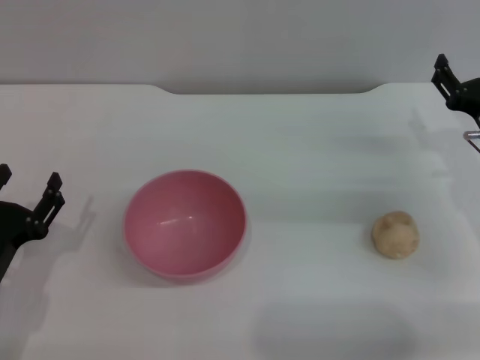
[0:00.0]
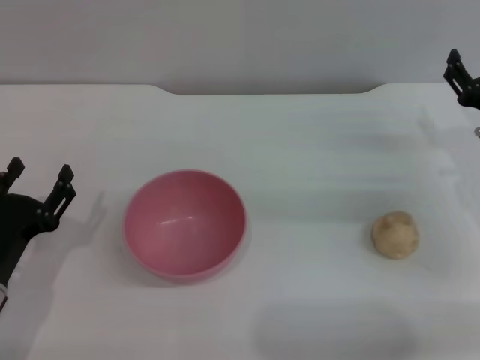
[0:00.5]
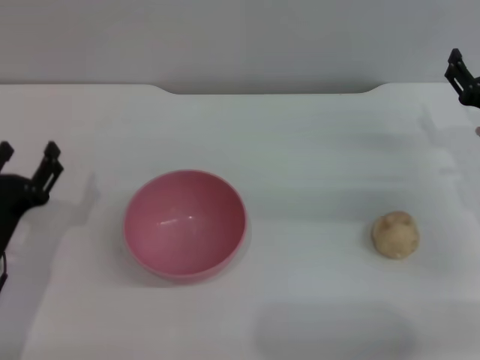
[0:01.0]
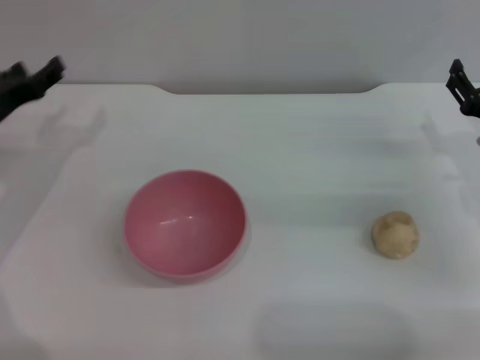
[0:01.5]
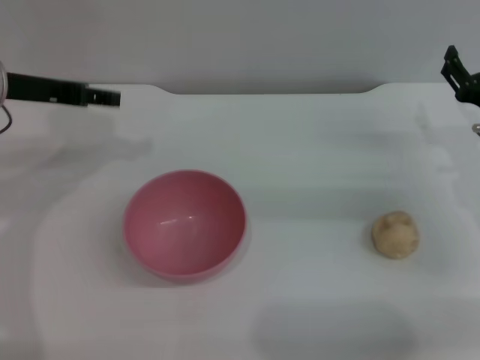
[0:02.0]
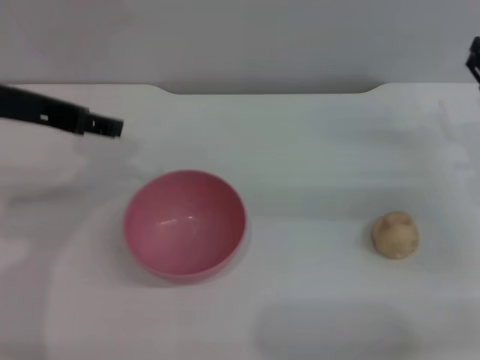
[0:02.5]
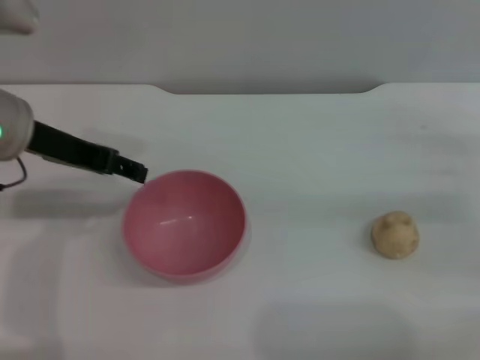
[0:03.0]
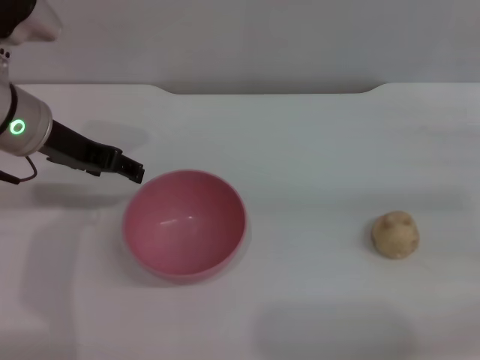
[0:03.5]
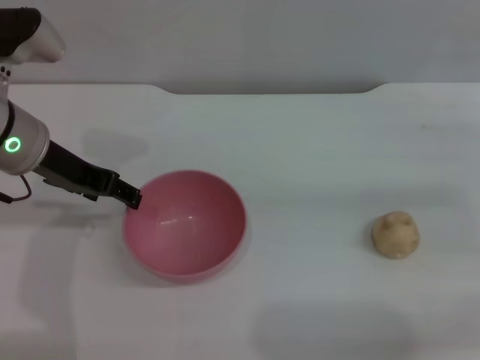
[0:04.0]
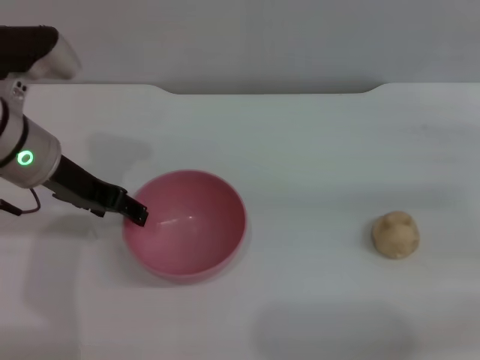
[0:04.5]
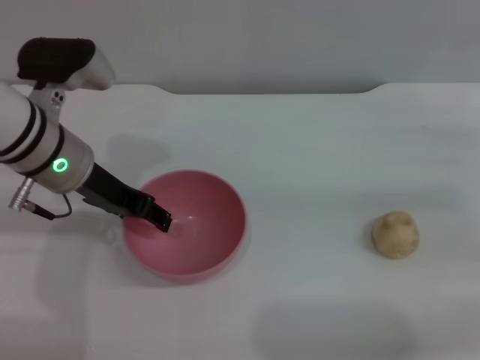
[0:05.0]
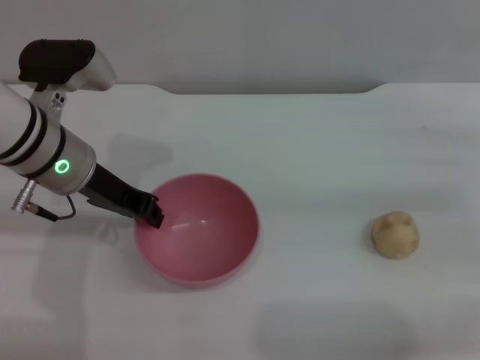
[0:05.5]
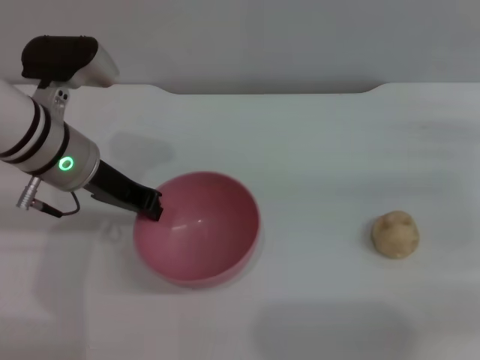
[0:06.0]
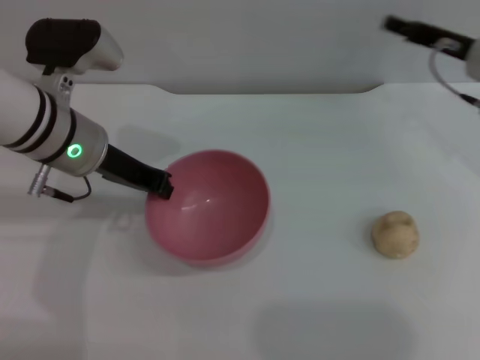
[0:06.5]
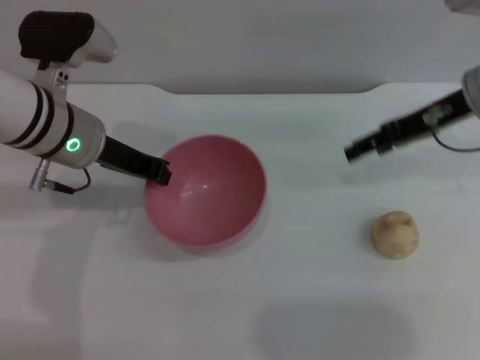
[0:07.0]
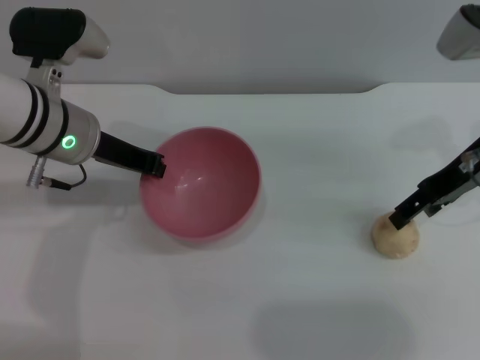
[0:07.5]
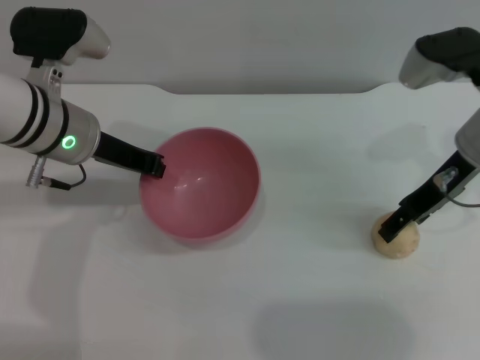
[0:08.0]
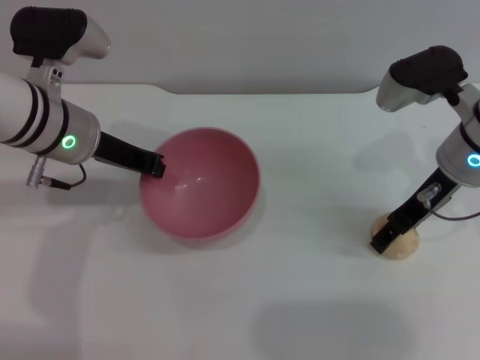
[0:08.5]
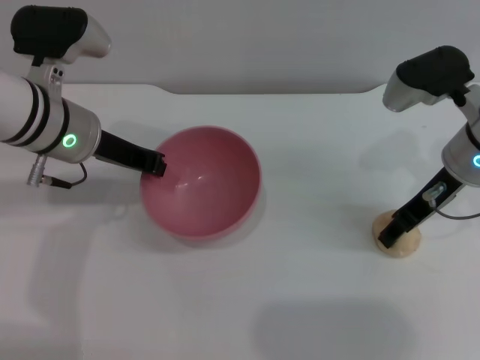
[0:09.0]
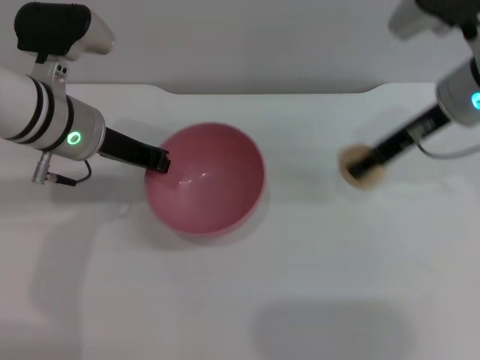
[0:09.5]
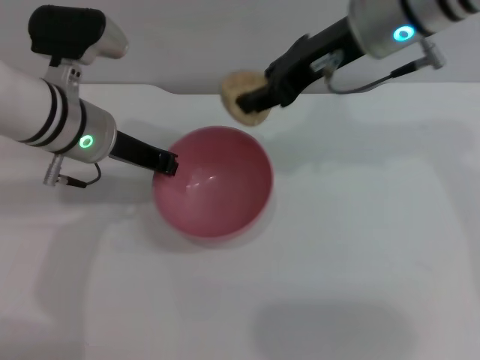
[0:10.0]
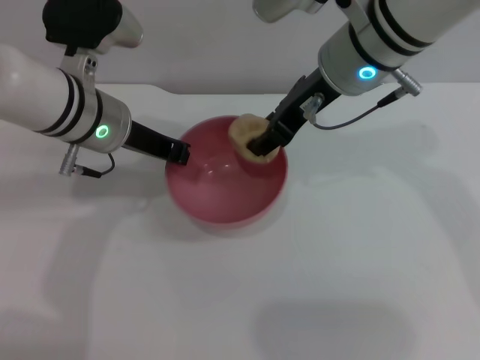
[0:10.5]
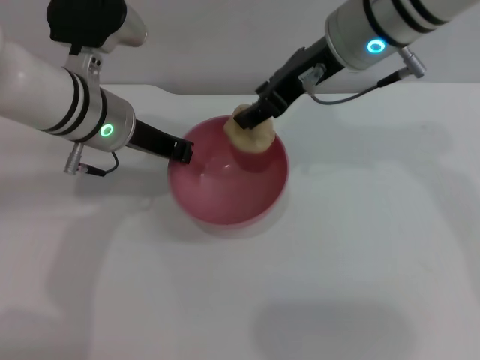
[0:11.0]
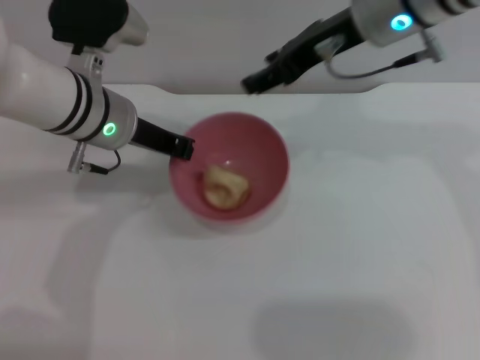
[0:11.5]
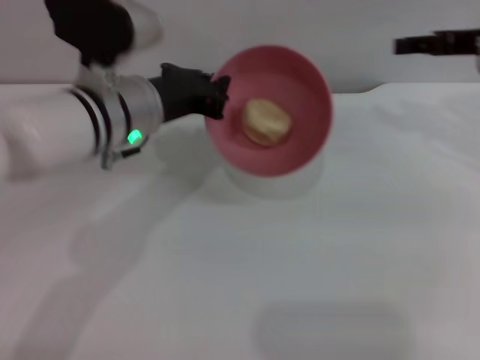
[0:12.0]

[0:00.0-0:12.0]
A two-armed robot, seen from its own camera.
Task of the whole recording: put the egg yolk pastry into the pink bowl and pour it out repeatedly.
Step, 0:00.0 to 0:07.0: Pick up the bowl with the left gripper.
Step, 0:07.5 to 0:09.0: Pick up the egg yolk pastry with the right gripper.
Step, 0:09.5 to 0:11.0: Place the egg yolk pastry into the bowl.
0:00.0 to 0:02.0: The left gripper heads forward and upward, covering about 25 cm.
0:02.0 to 0:04.0: The right gripper goes about 10 cm to the right.
0:04.0 to 0:06.0: The left gripper closes.
0:06.0 to 0:08.0: The right gripper is displaced to the left and upward by about 15 cm.
0:08.0 to 0:10.0: The right gripper travels to the left and upward by roughly 15 cm, and closes its fingers.
0:10.0 to 0:12.0: The right gripper goes about 15 cm to the right, and opens.

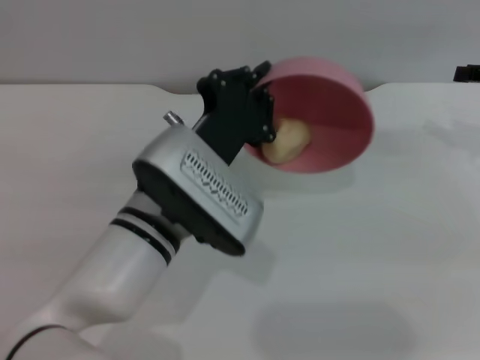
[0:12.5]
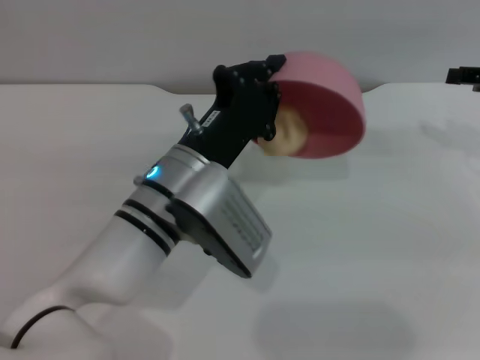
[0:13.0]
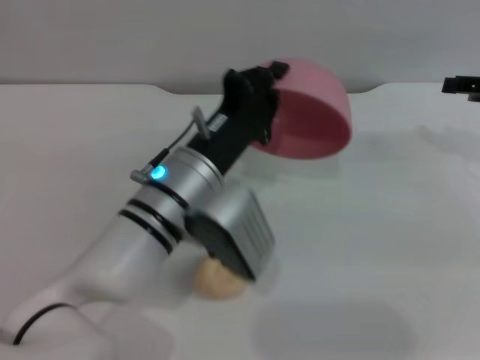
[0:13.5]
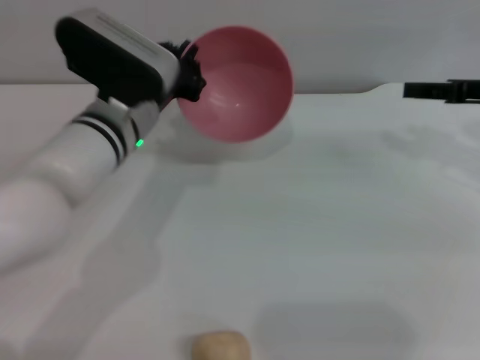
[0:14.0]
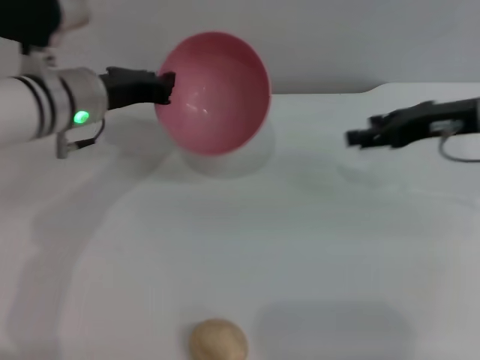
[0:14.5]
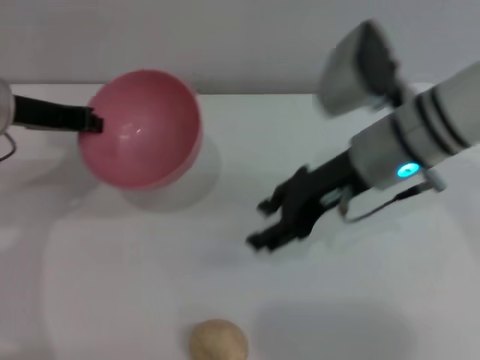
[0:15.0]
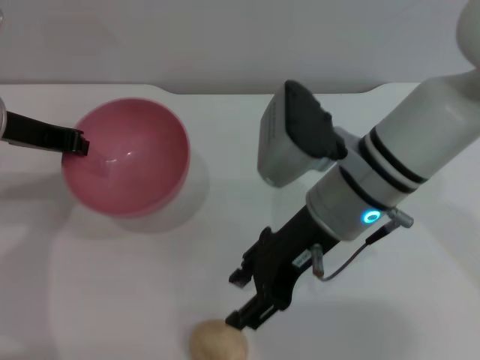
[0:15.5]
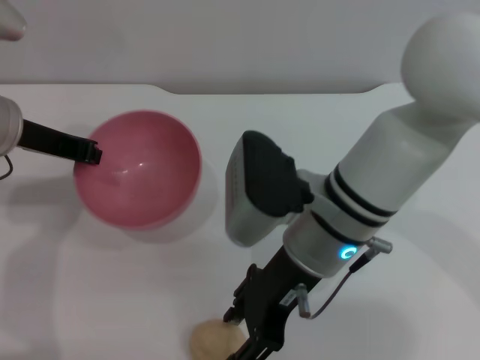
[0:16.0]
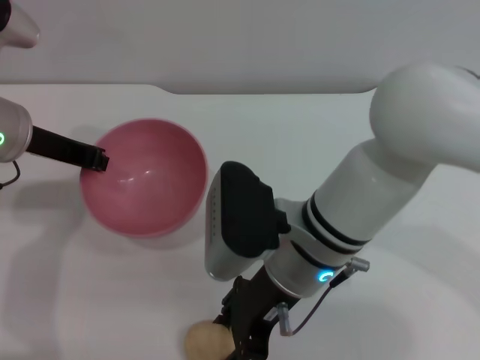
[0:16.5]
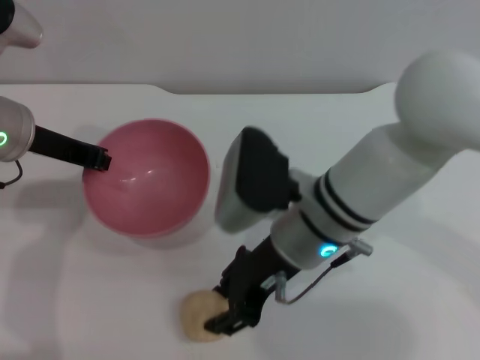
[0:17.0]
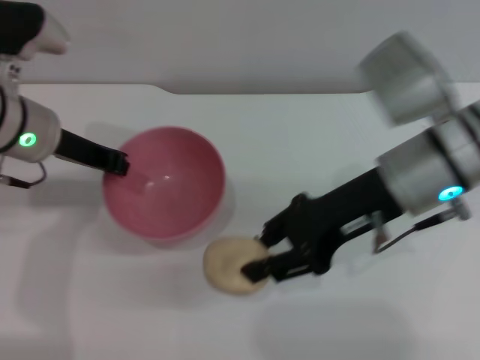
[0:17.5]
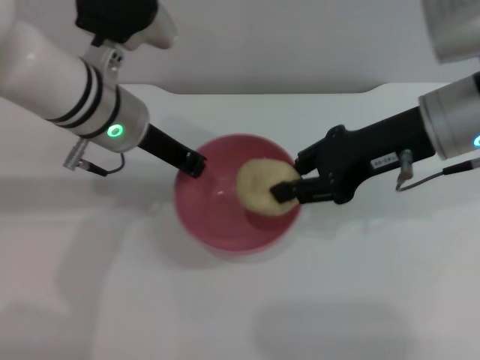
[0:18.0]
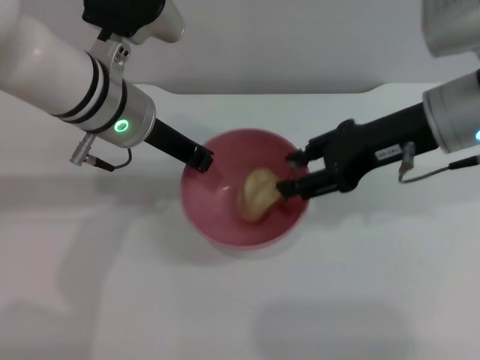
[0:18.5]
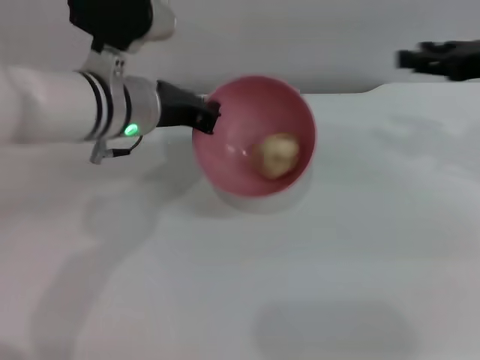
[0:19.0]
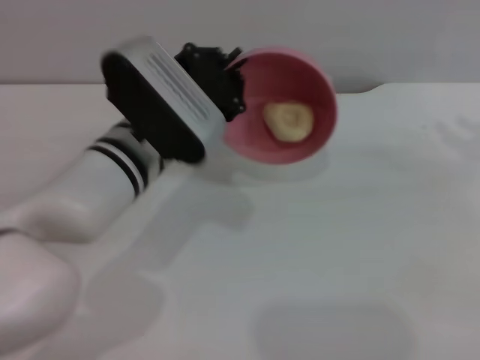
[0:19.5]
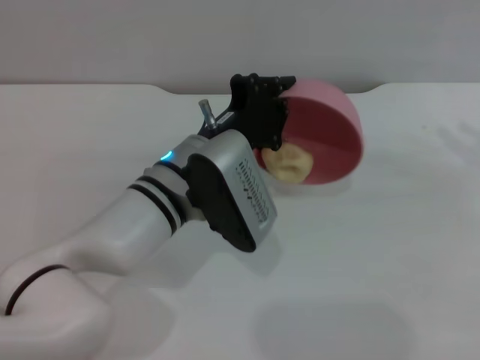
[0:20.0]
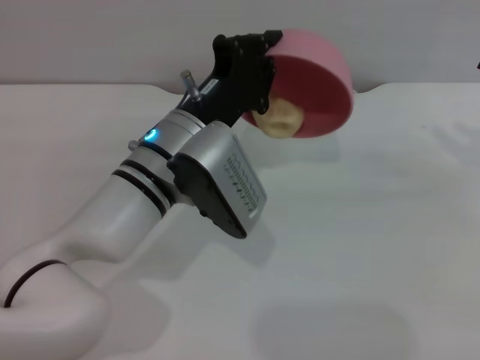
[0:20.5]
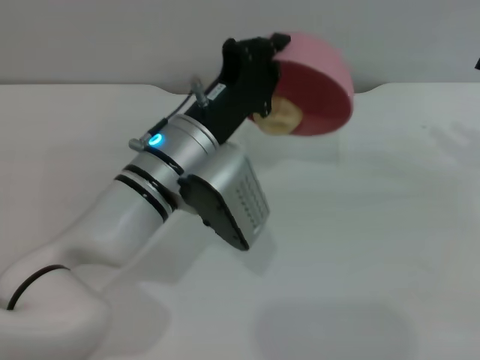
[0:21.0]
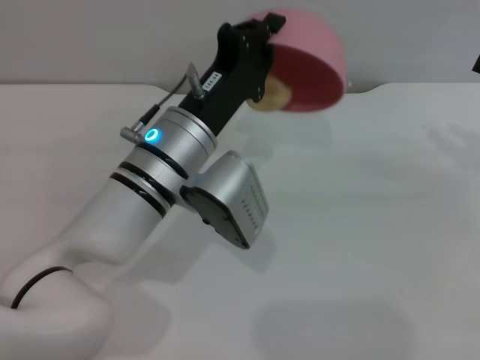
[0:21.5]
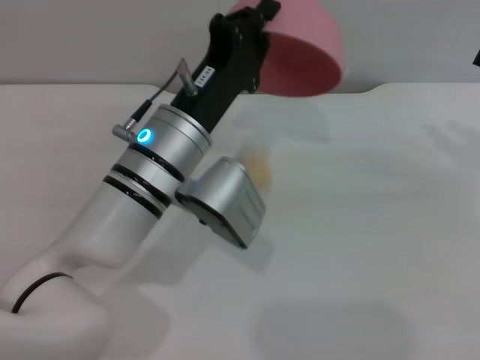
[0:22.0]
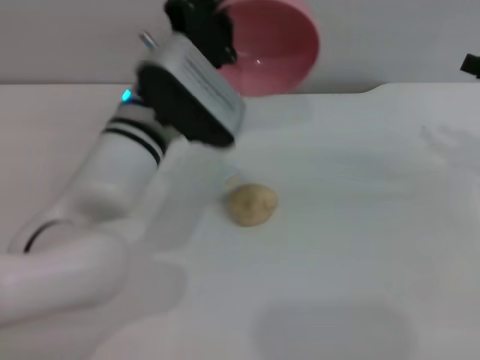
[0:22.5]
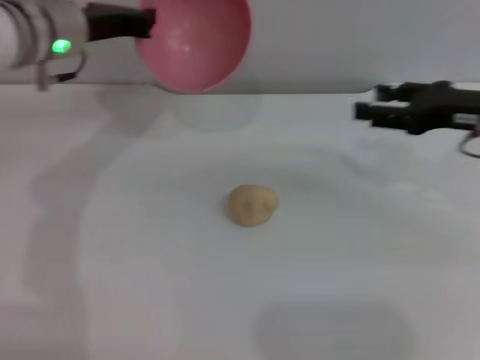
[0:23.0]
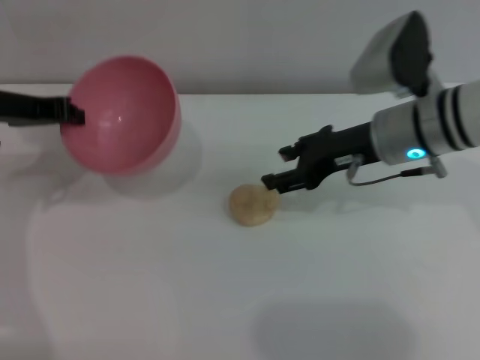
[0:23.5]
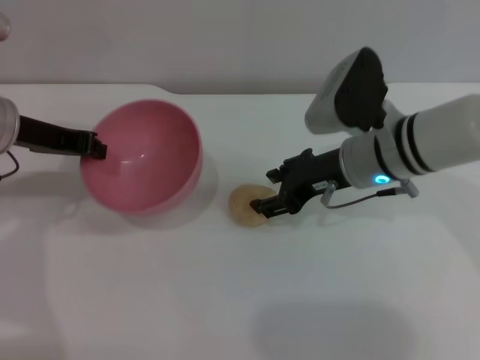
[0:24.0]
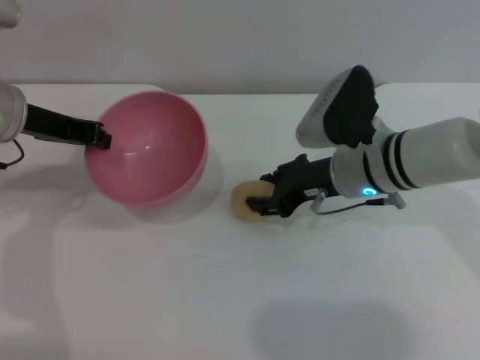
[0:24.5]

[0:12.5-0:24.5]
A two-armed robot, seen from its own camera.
Task of the whole recording: put the egg yolk pastry into the pink bowl and pour it out repeatedly.
Step, 0:13.5 to 0:17.0: Pick up the egg yolk pastry with the right gripper.
Step, 0:17.5 to 0:18.5: Place the egg yolk pastry into the bowl.
Step, 0:19.0 to 0:22.0: Pour the egg yolk pastry out of bowl.
0:12.5 to 0:14.5: The left gripper moves forward and to the left, about 15 cm. Meanwhile the right gripper goes roughly 10 cm to the left.
0:14.5 to 0:16.5: The right gripper heads to the left and backward, covering approximately 25 cm. Meanwhile the left gripper changes place by approximately 5 cm.
0:16.5 to 0:18.5: The right gripper shifts approximately 20 cm to the right, upward and forward, and closes, then opens again, while the left gripper is displaced to the right by approximately 10 cm.
0:18.5 to 0:20.5: The left gripper moves downward, backward and to the right, about 10 cm, while the right gripper moves to the right, approximately 20 cm.
0:22.5 to 0:24.5: The grippers both shift to the left by about 20 cm.

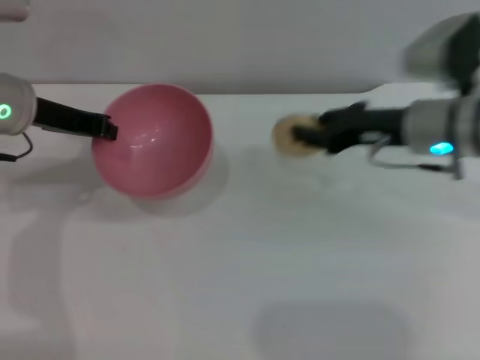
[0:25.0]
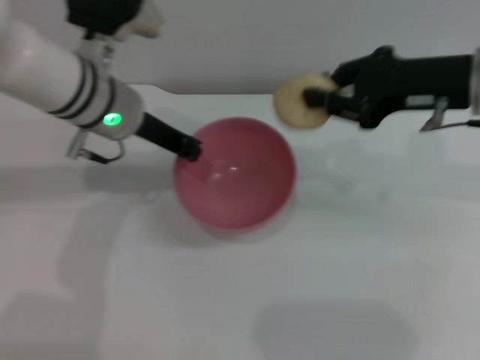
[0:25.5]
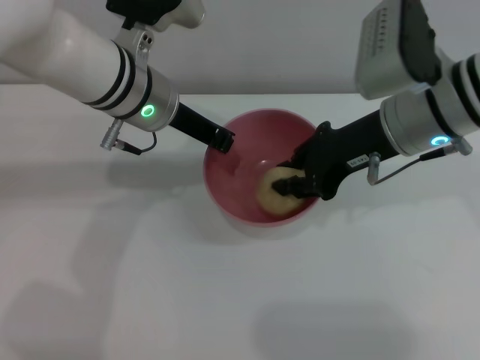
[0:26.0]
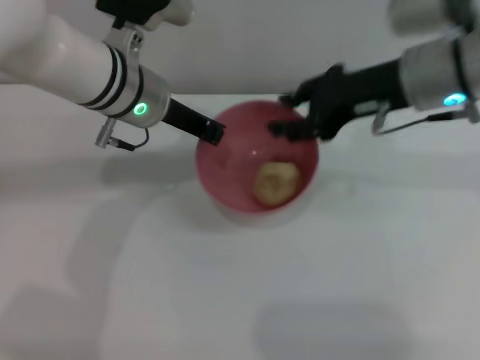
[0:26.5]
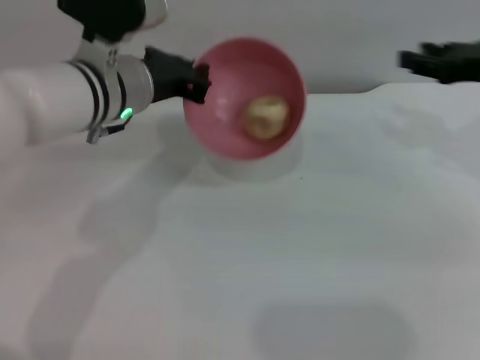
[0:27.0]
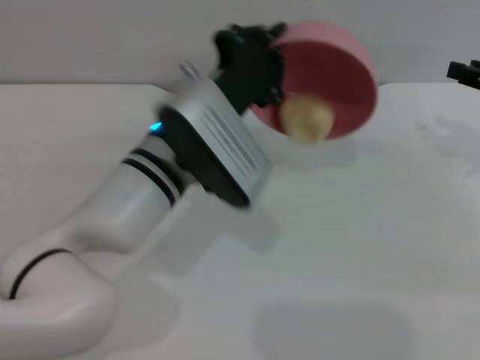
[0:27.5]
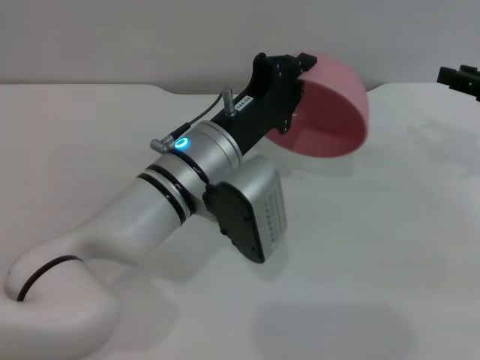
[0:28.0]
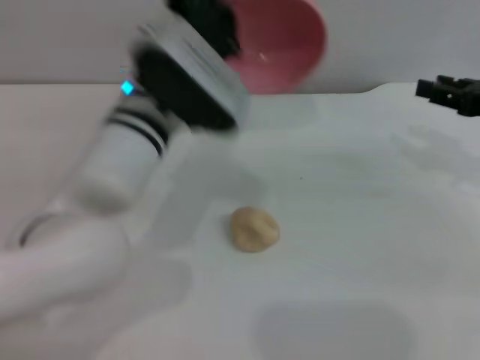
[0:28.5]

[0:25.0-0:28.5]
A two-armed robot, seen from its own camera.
Task of the whole recording: put the egg yolk pastry into the pink bowl and pour it out repeatedly.
Step, 0:25.0 to 0:26.0: Place the egg yolk pastry into the bowl.
Step, 0:26.5 to 0:27.5: Pour the egg yolk pastry out of bowl.
0:25.0 to 0:27.0: The left gripper shifts approximately 10 cm to the right; the right gripper heads to the right and upward, covering about 10 cm.
